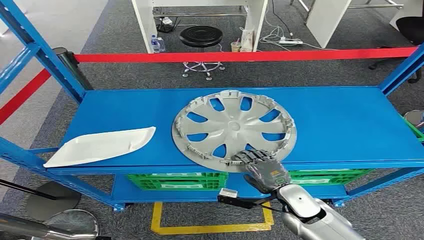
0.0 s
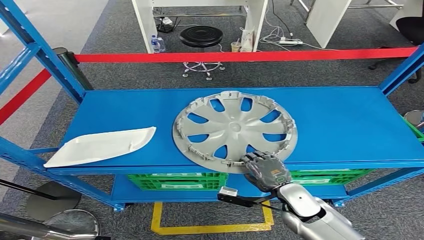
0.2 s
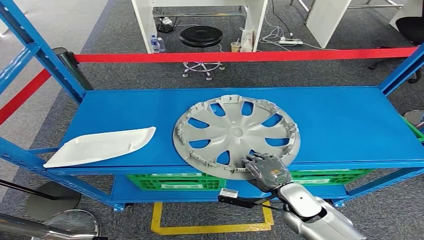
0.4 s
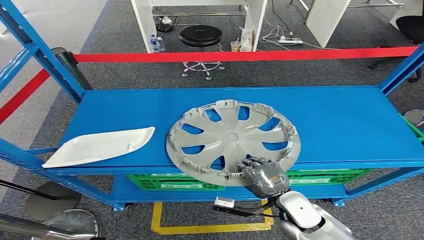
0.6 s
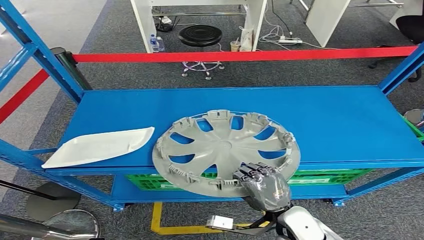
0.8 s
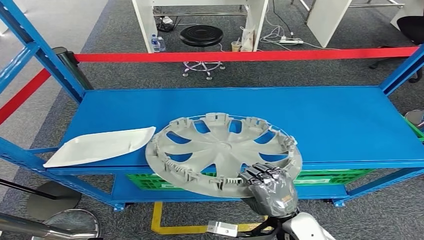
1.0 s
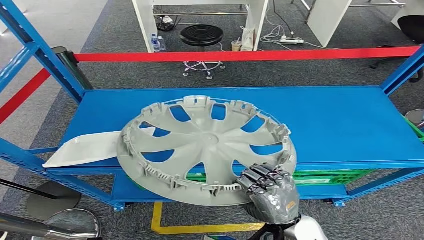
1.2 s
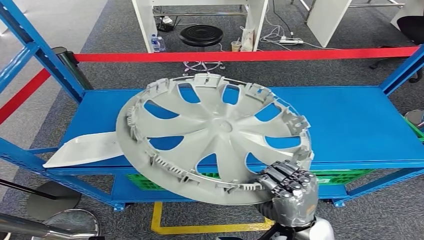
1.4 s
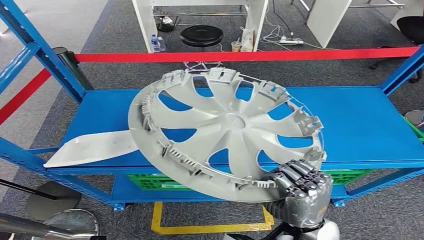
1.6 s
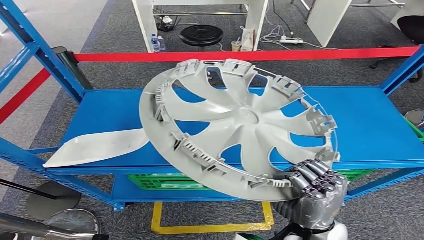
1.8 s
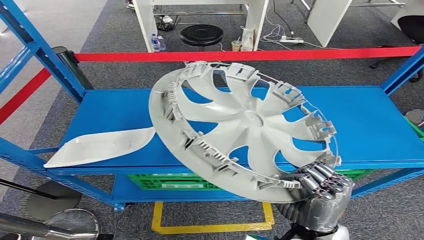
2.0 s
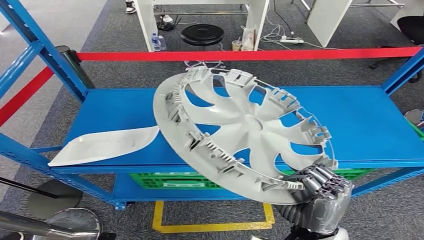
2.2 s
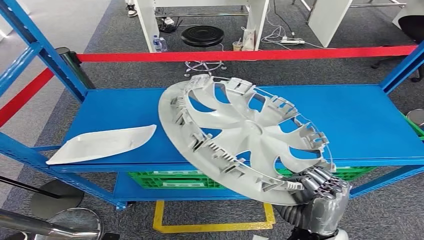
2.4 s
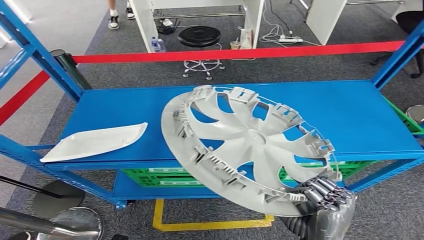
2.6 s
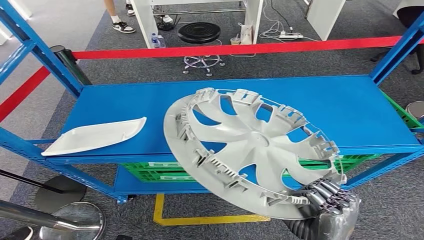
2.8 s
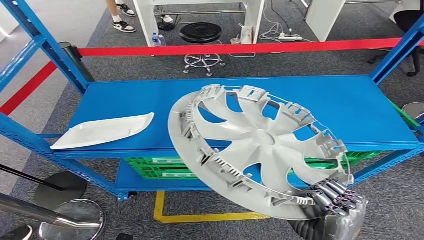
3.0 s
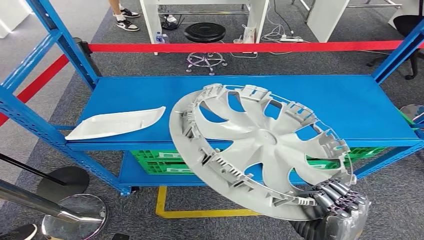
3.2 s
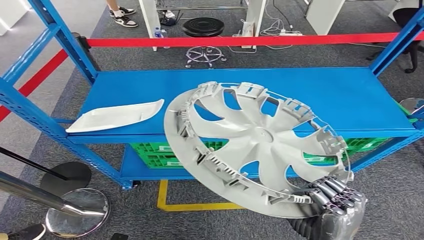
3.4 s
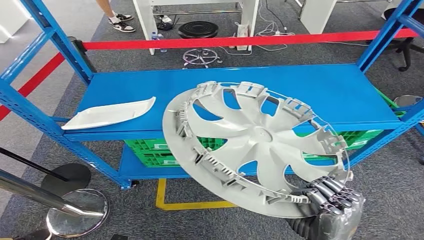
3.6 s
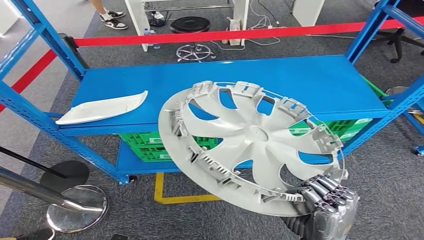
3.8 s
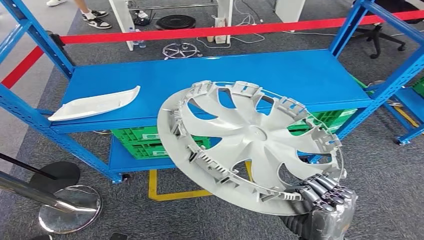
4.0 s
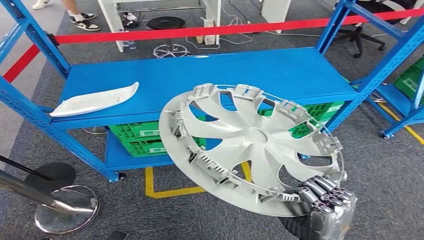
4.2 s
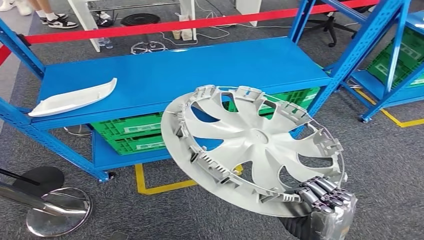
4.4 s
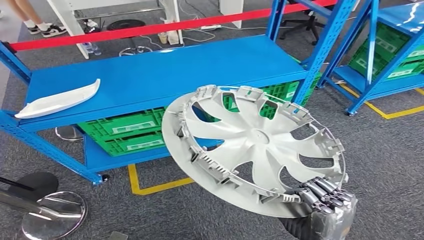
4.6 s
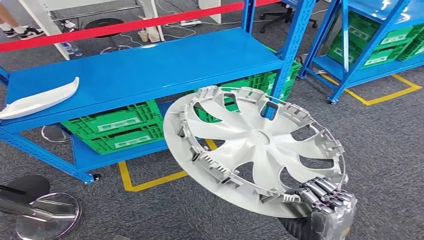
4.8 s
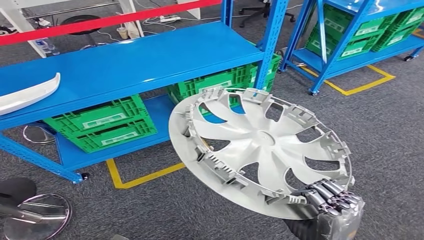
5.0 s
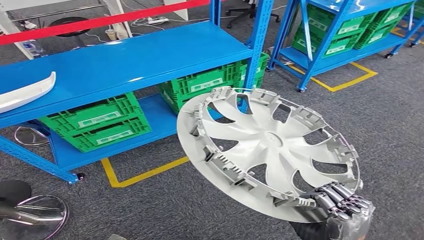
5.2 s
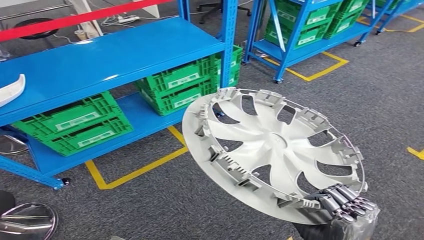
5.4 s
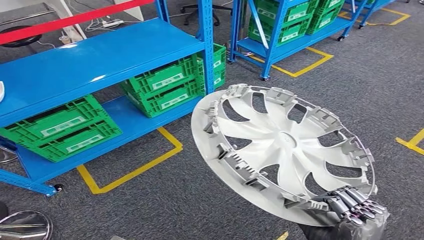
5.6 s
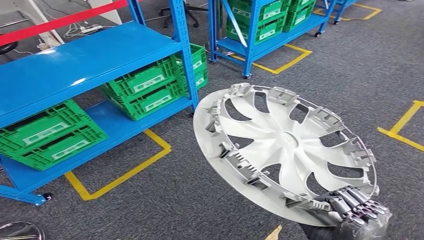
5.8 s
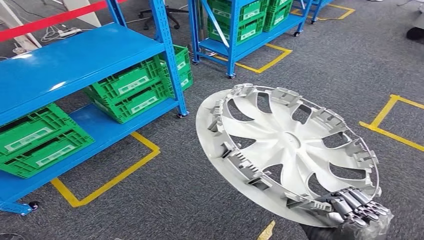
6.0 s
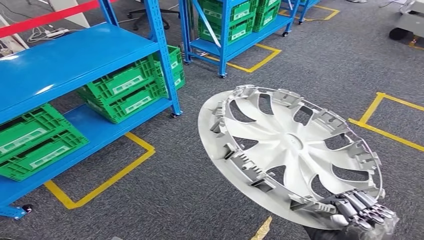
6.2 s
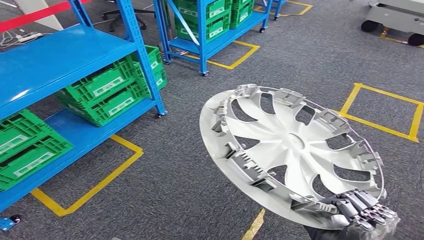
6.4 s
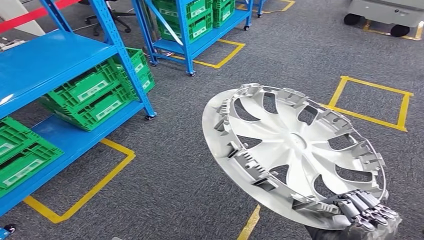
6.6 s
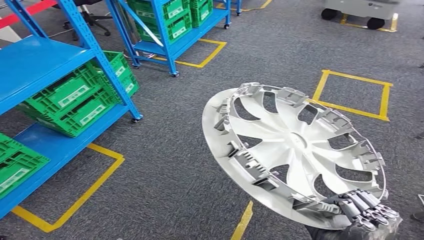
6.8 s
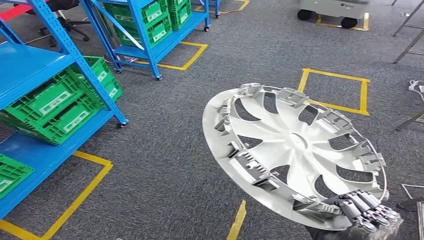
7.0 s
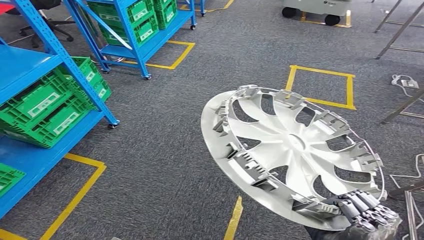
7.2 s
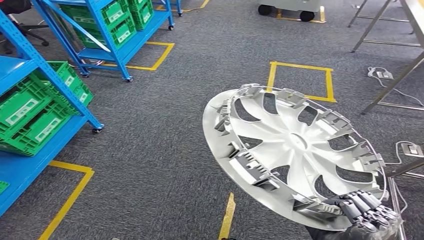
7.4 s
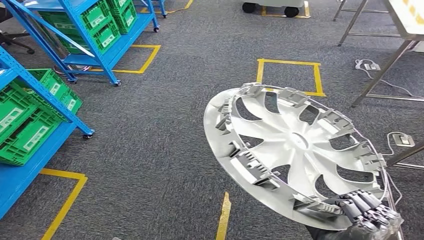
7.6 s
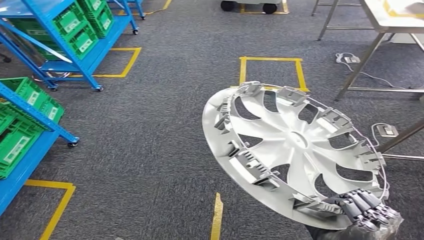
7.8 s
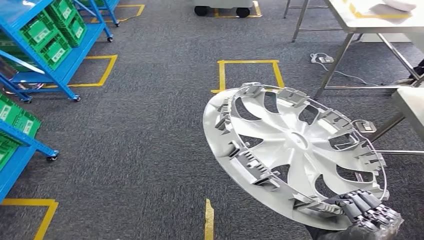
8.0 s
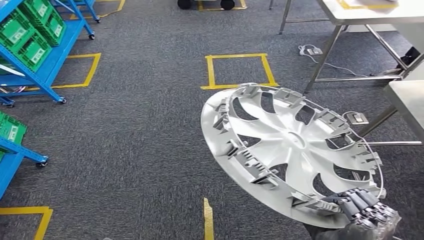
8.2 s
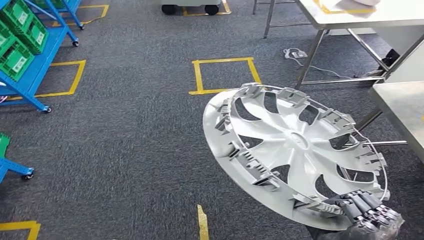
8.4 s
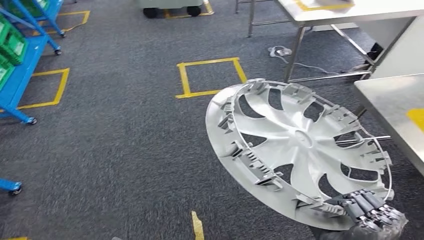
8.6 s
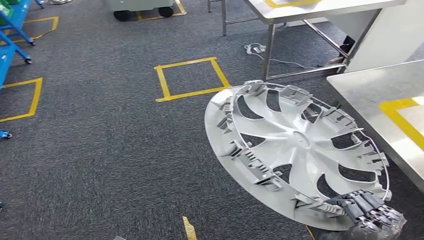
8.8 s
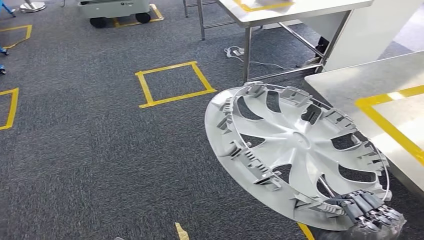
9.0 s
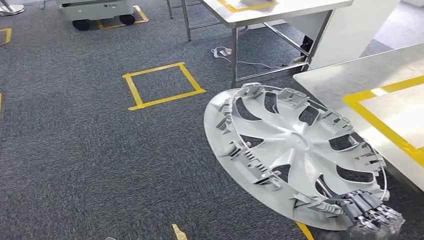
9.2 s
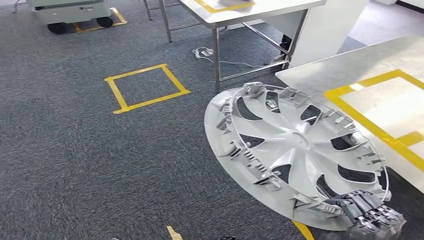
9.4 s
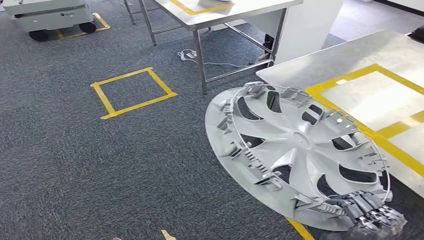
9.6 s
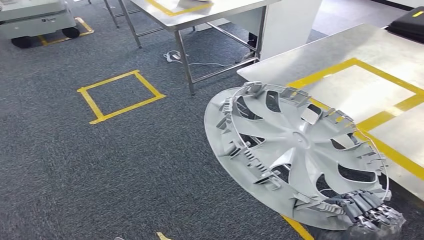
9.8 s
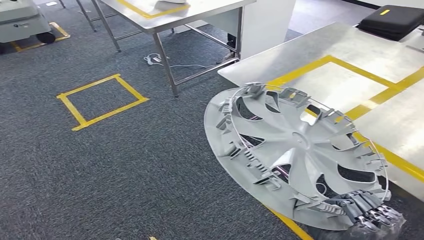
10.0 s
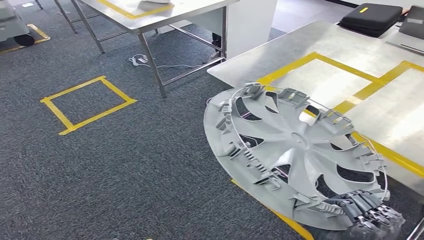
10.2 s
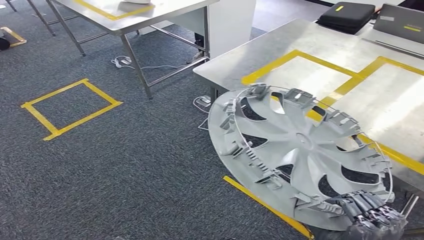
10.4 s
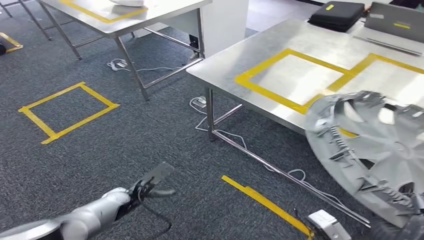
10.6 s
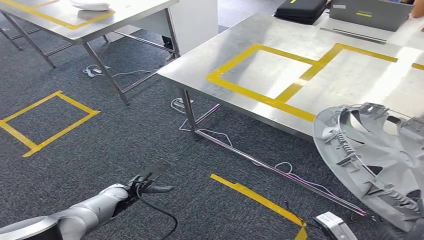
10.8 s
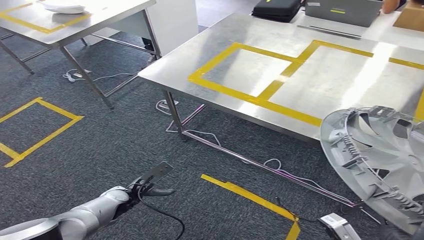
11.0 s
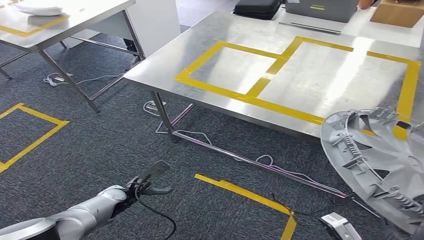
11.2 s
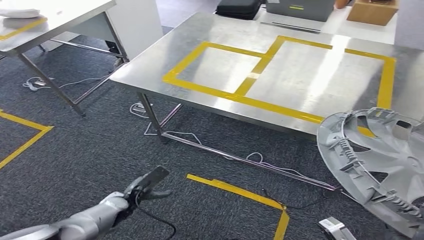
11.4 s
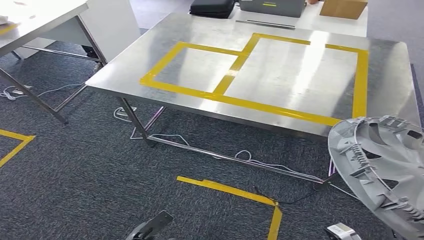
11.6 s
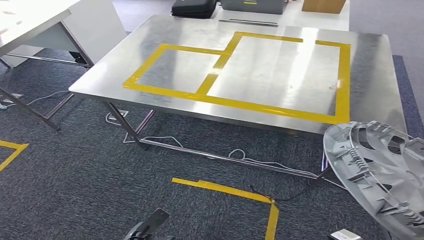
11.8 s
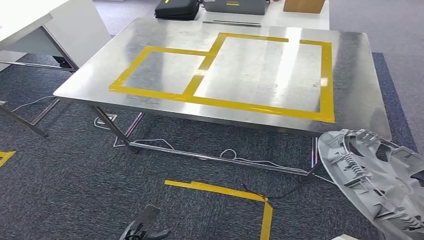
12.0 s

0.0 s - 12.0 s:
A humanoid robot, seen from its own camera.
Step, 0.0 s - 2.4 s: Pick up the small component from the shelf.

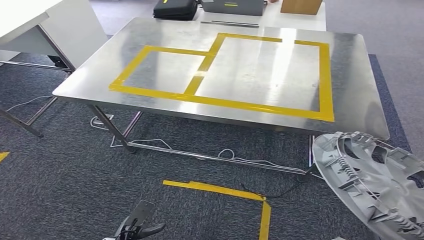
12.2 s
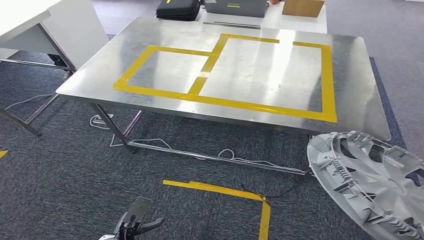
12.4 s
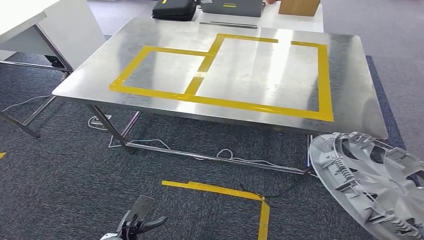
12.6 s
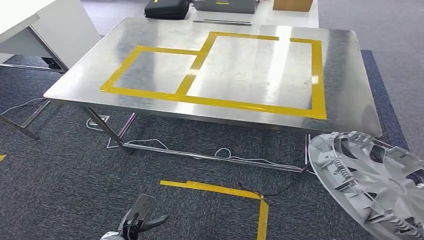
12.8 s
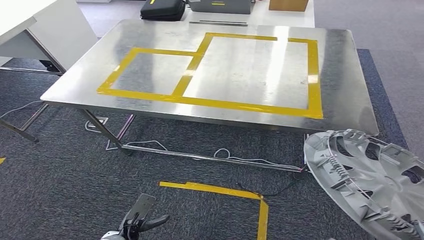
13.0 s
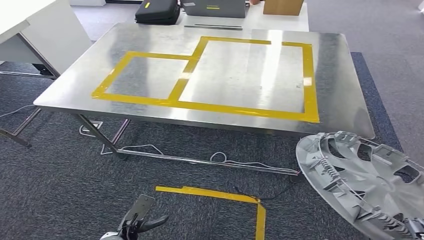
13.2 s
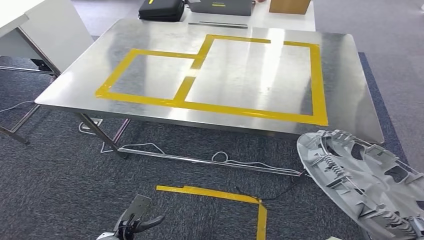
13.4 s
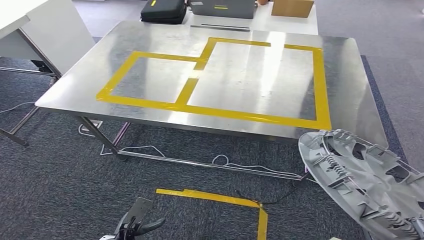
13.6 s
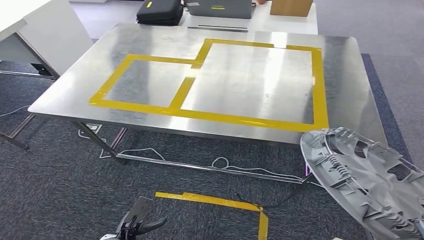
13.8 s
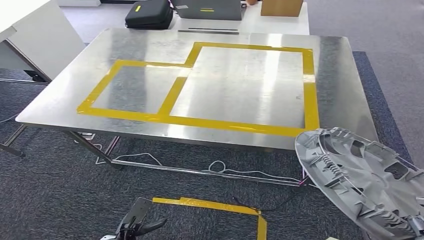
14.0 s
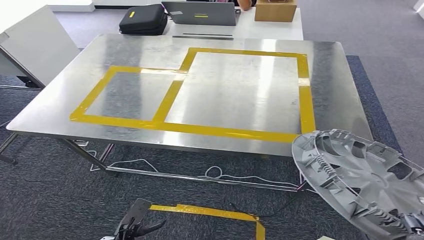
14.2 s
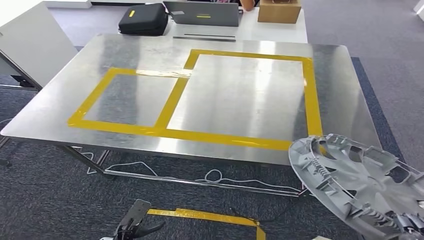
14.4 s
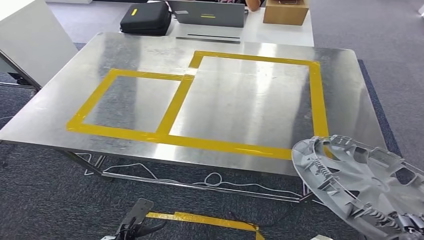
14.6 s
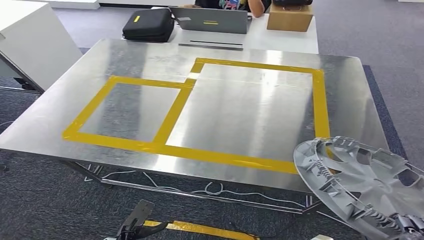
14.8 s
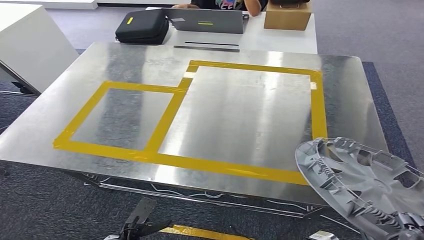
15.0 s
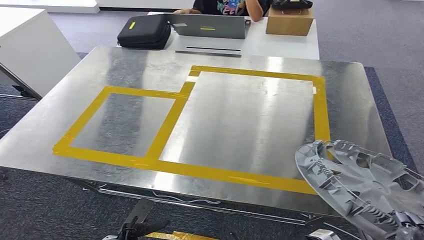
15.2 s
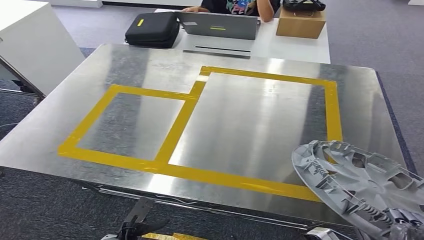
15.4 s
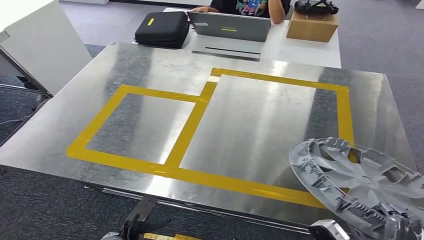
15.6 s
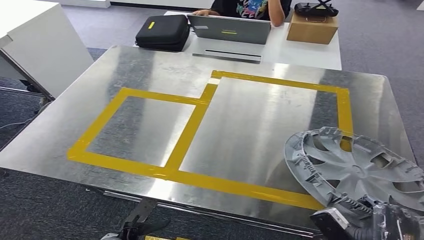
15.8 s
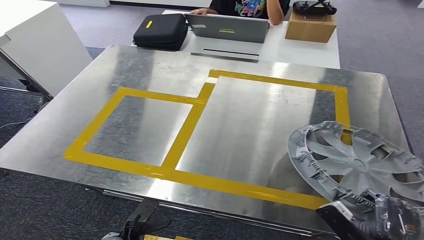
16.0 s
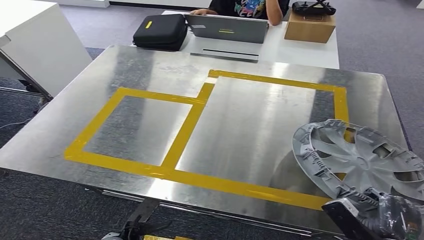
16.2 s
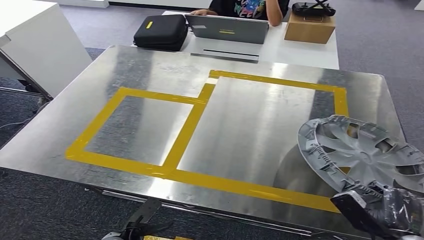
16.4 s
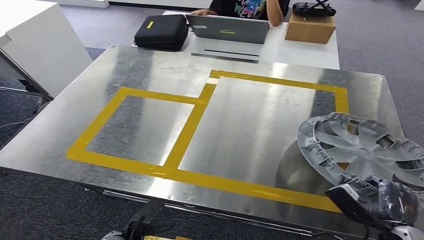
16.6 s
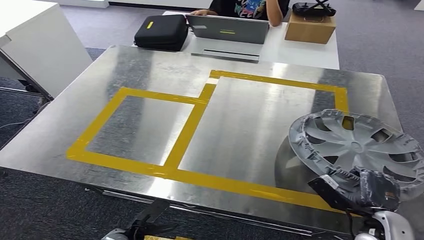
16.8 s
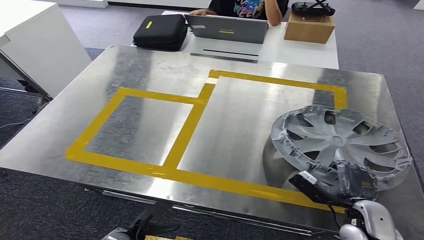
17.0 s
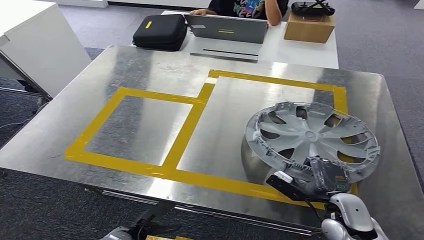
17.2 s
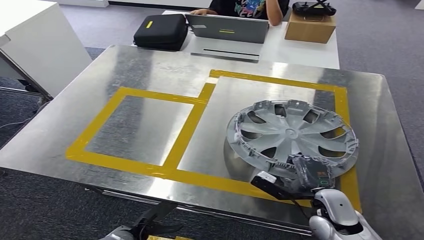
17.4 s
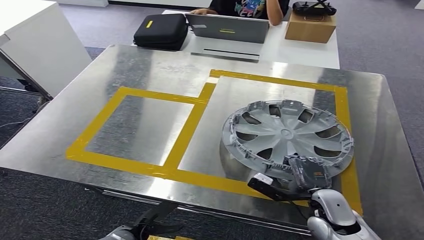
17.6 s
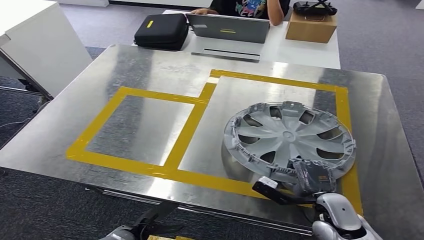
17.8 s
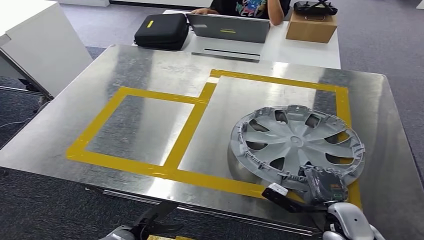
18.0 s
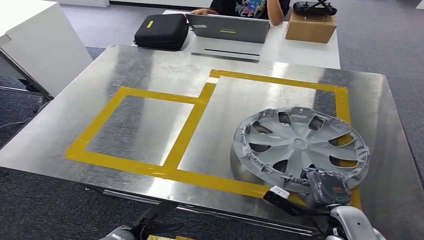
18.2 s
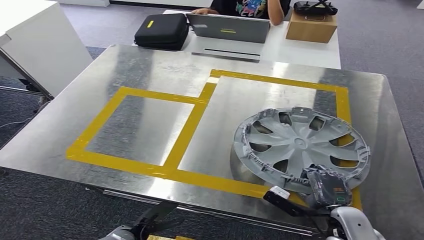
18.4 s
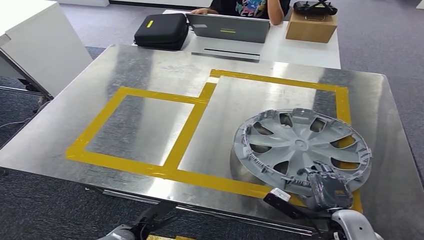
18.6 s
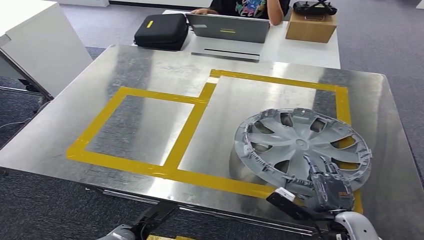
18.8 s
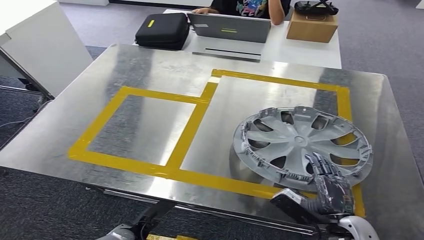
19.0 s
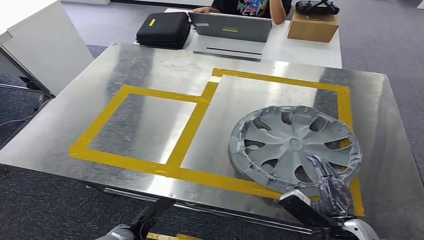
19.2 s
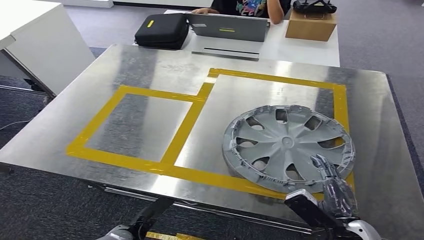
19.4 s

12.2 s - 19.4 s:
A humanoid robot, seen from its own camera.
16.6 s - 18.0 s: The right hand moves to the left and forward, roughly 10 cm.
18.0 s - 19.4 s: The right hand moves approximately 5 cm.
